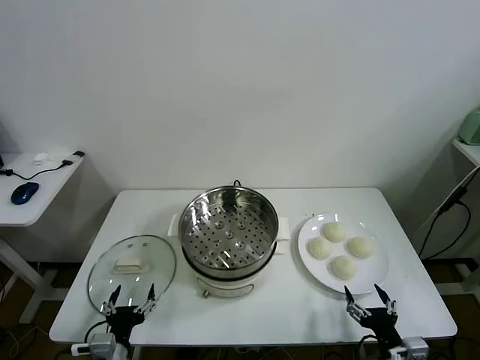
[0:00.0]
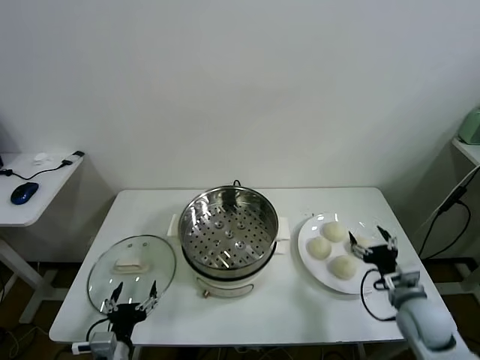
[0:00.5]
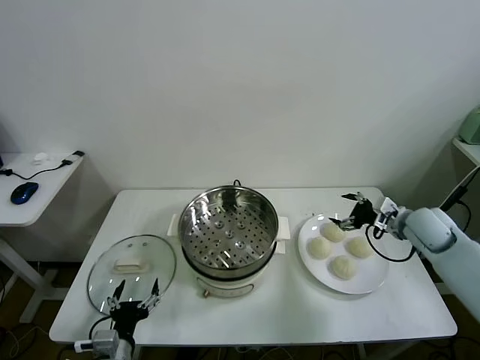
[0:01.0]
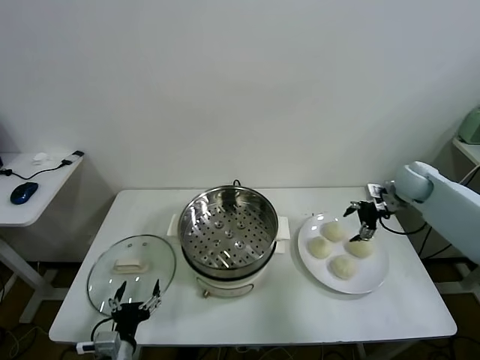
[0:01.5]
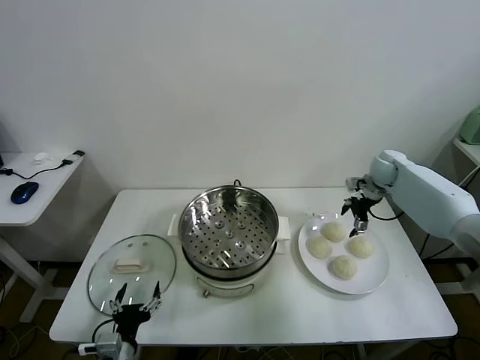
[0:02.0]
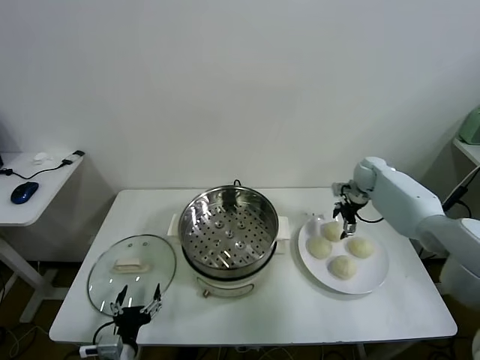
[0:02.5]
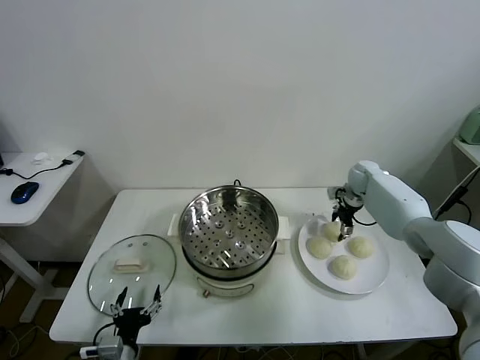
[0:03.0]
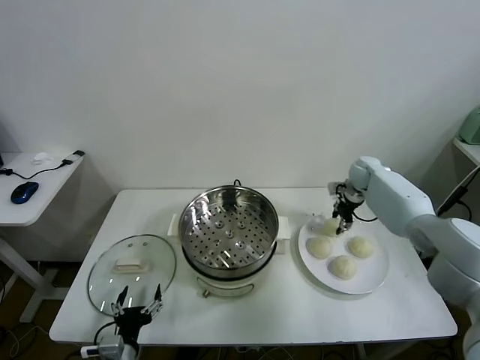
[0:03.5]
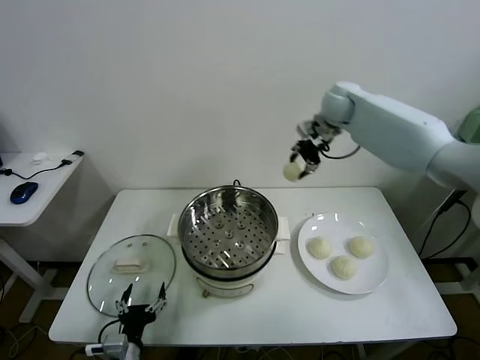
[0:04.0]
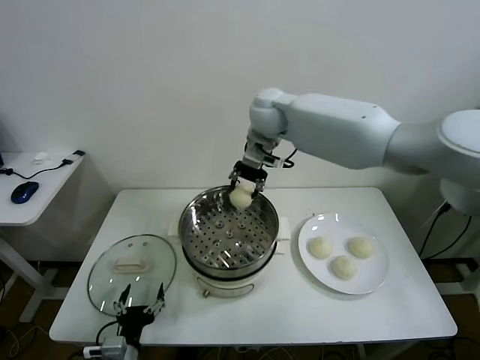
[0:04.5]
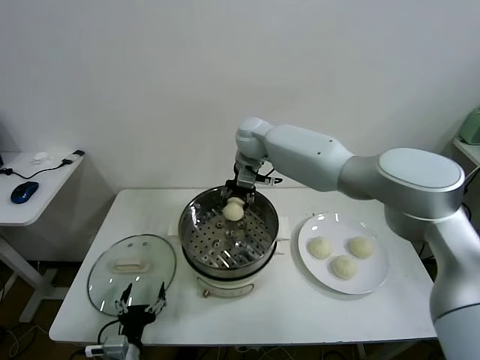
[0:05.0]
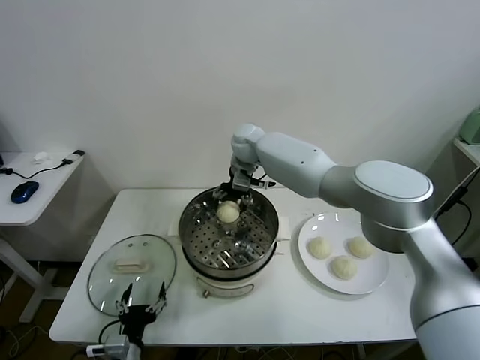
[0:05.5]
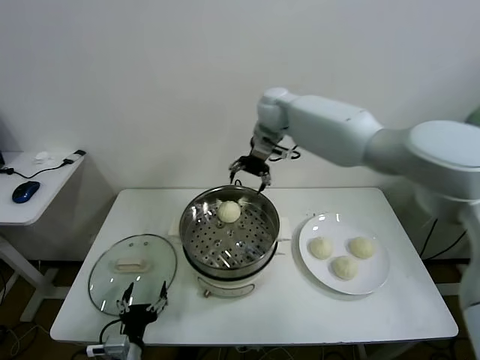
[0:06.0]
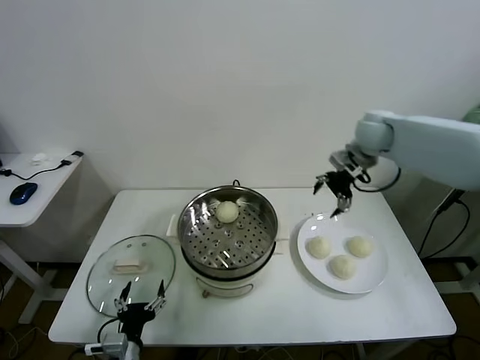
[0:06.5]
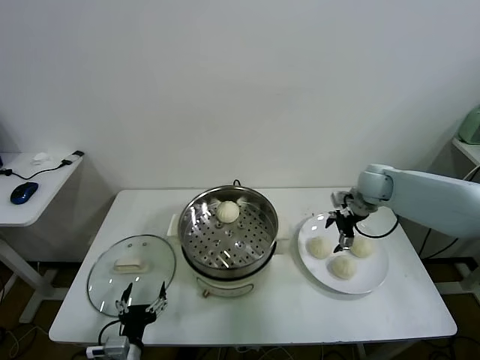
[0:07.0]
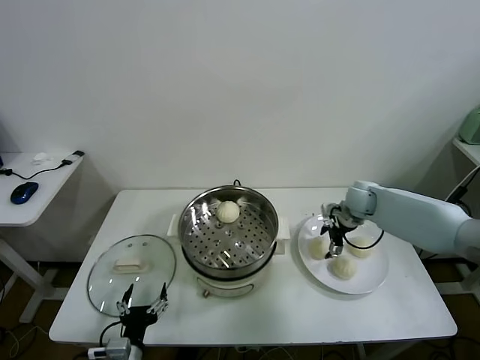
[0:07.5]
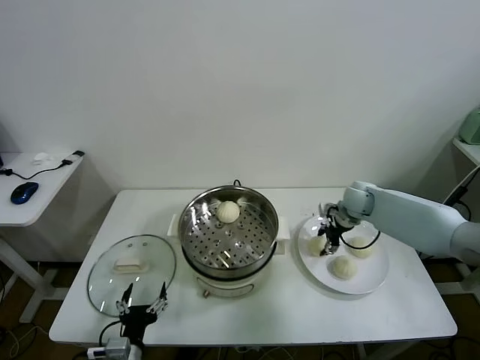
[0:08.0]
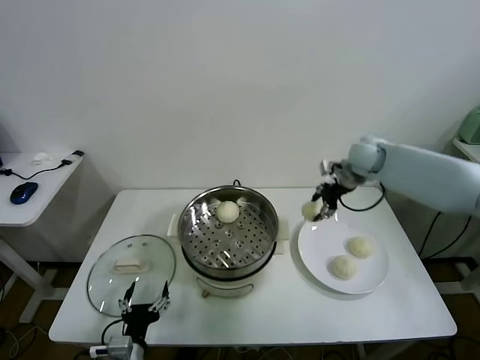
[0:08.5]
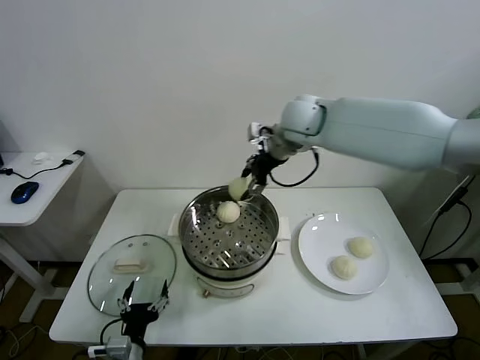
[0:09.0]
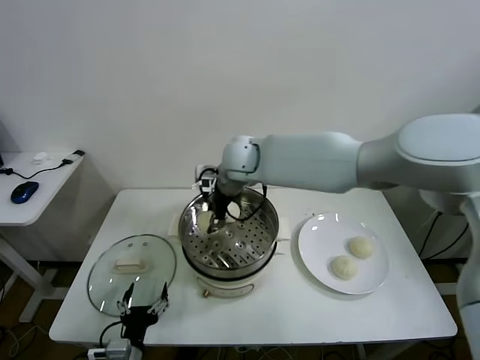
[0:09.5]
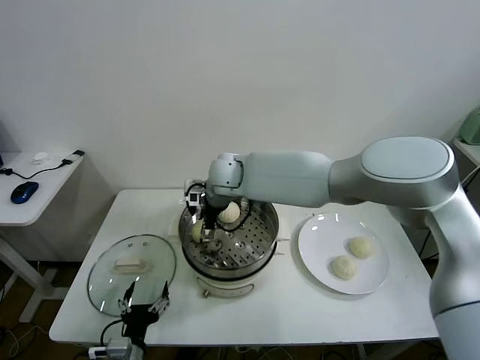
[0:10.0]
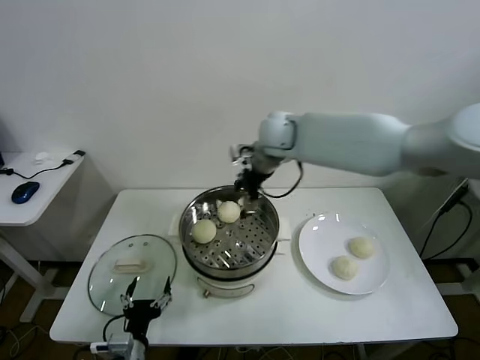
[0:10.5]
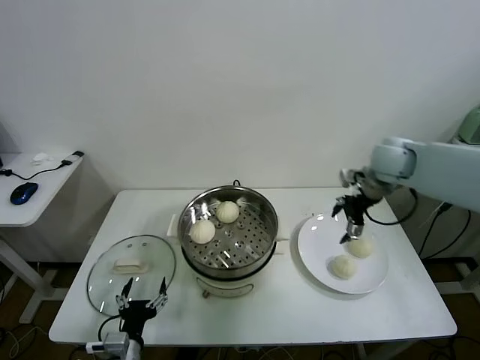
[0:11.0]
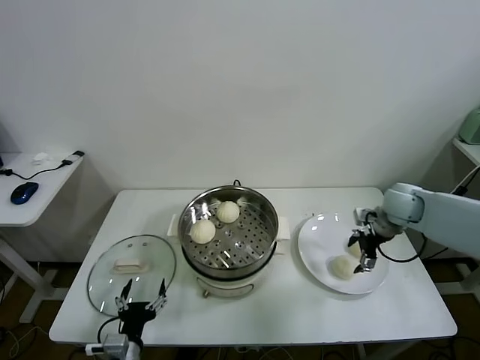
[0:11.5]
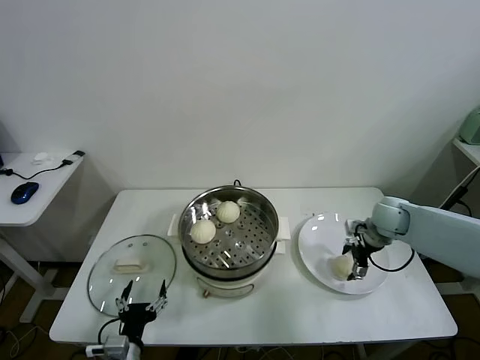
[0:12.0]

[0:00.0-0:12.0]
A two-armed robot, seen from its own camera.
Task of the whole recording: take steamed baozi put them in steamer.
Step, 0:00.0 to 0:03.0: Grasp the baozi in the plate with right gripper.
Step, 0:03.5 to 0:05.5: Place the baozi on the steamer with right gripper.
Step, 0:06.0 to 0:08.0: Grasp the baozi in the plate with right gripper.
Step, 0:08.5 to 0:10.0: Place the baozi on the steamer with right gripper.
0:02.0 to 0:04.0: The right gripper shifts some 30 cm to the left and upward, and closes its fingers.
0:04.0 to 0:06.0: The right gripper goes to the left and returns, some 15 cm each way, and opens up.
0:06.0 to 0:08.0: The right gripper goes some 30 cm downward and to the right, and closes up.
0:08.0 to 0:10.0: The right gripper is displaced to the left by about 35 cm, and opens.
0:10.0 to 0:12.0: The right gripper heads to the right, covering about 40 cm.

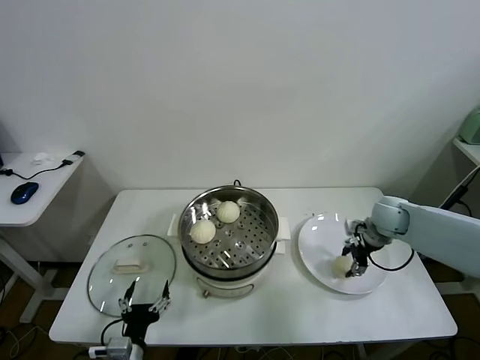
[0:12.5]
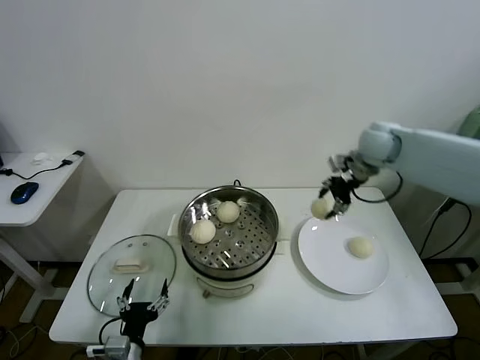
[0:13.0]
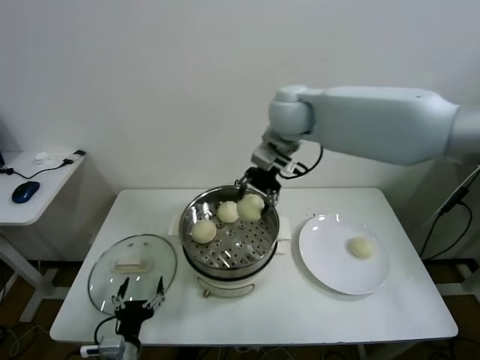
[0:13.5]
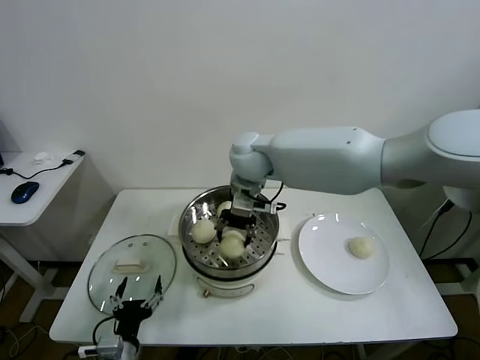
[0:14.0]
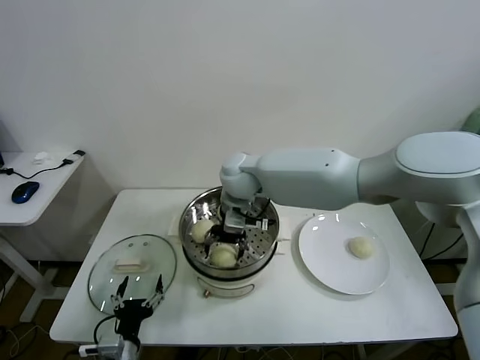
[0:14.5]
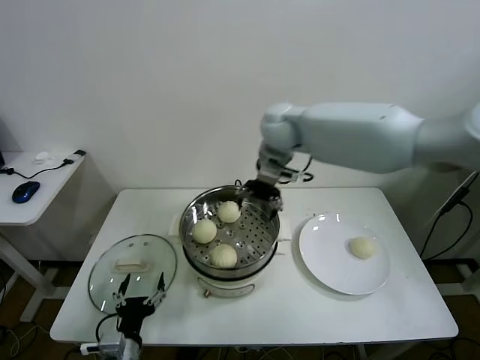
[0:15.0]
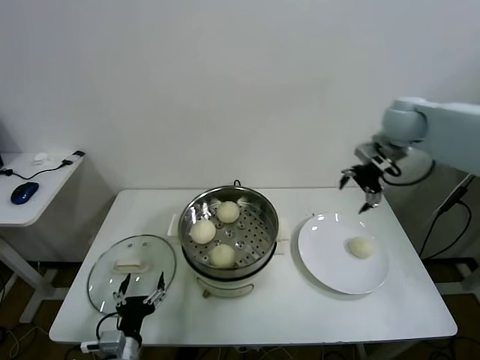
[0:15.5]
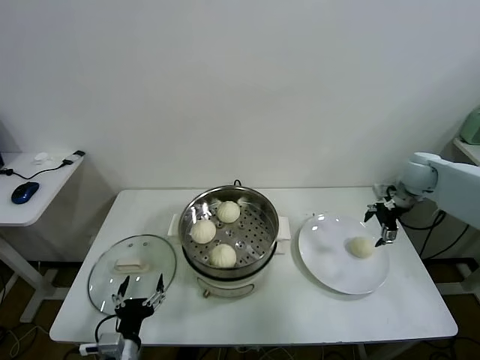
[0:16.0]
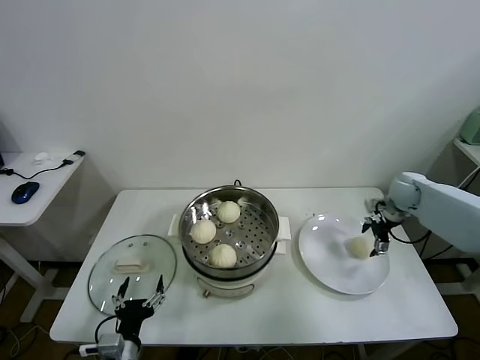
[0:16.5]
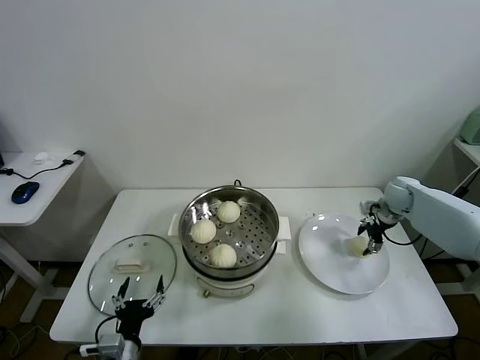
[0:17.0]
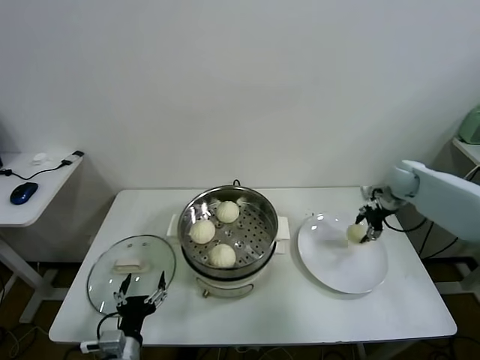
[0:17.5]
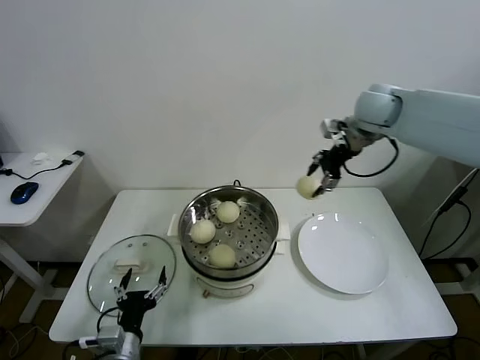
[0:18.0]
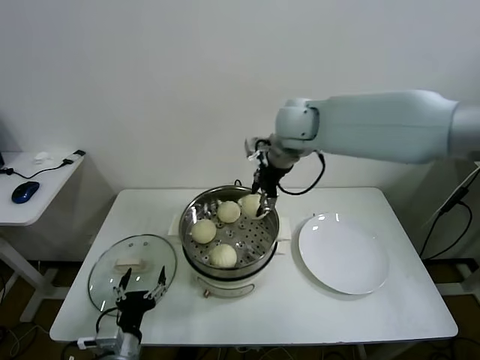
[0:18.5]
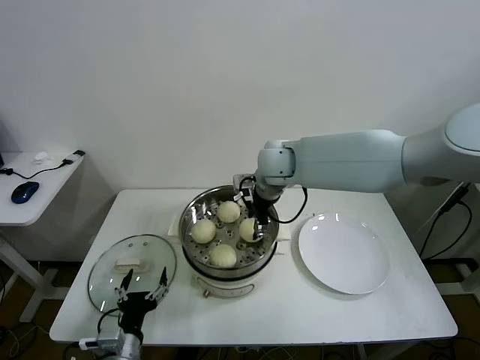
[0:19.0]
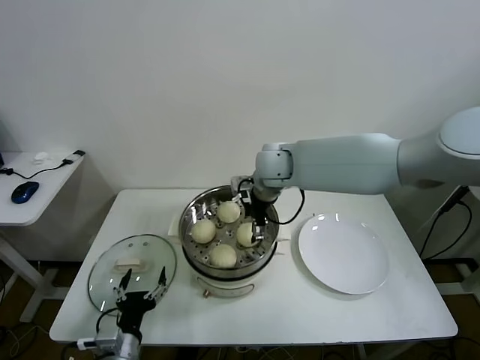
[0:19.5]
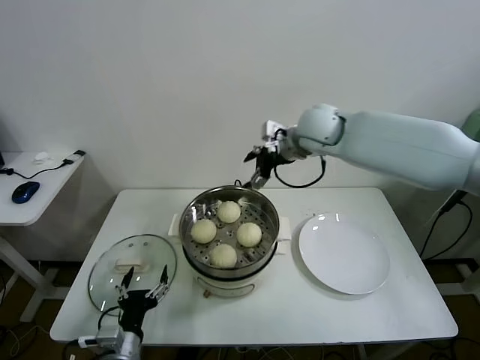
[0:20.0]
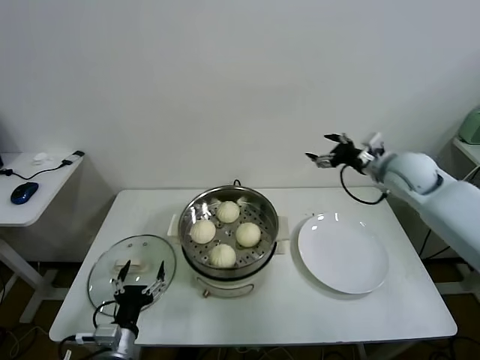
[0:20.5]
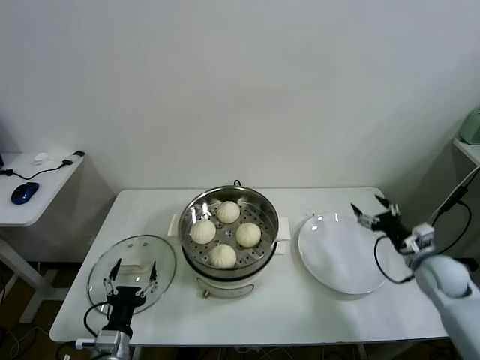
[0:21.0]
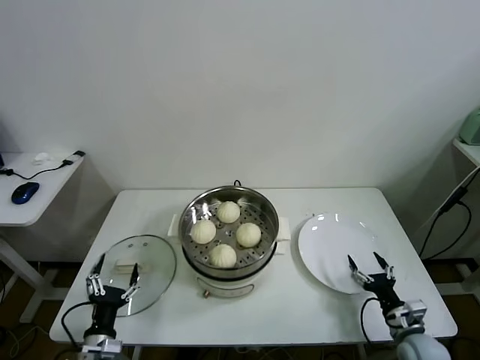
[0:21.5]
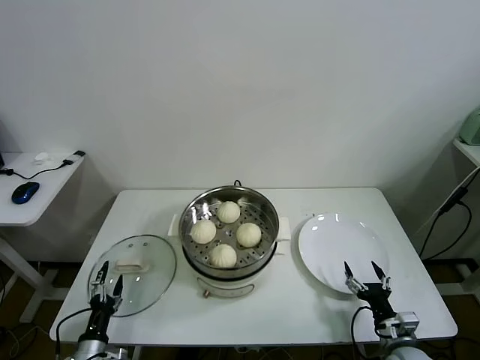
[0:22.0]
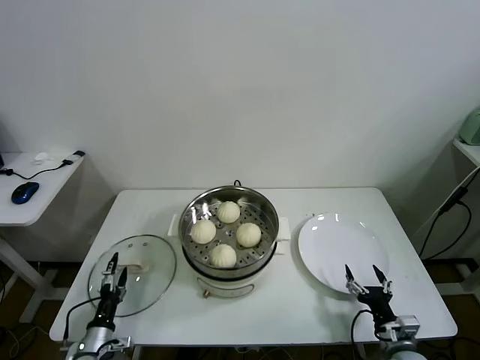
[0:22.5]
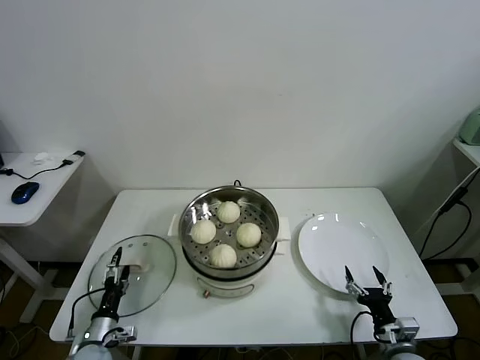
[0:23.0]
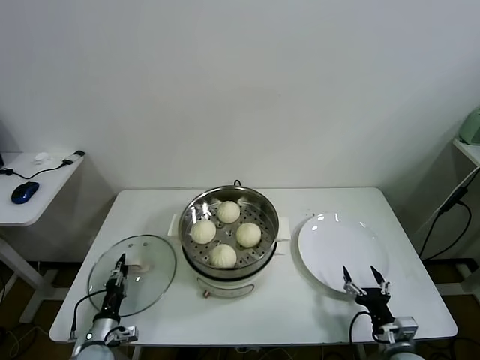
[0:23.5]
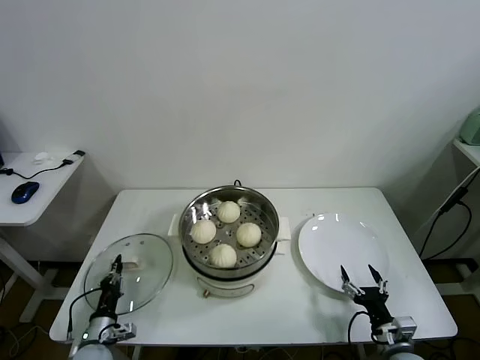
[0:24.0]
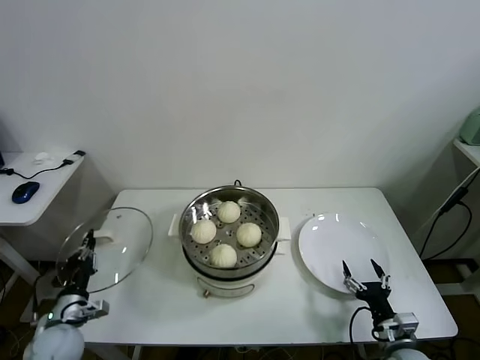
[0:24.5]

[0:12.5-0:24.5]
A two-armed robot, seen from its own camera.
Task of the whole recording: take steamed baozi put them in steamer.
Step, 0:12.5 to 0:14.5: Place the baozi on the steamer with right gripper.
Step, 0:15.0 to 0:17.0: Grasp the baozi in the plate with right gripper.
Step, 0:17.5 to 0:19.5: Place the baozi on the steamer with right gripper.
Step, 0:20.0 to 0:23.5: Grasp the pot lid with left gripper.
0:12.5 to 0:14.5: The right gripper travels to the left by about 35 cm, and opens.
0:14.5 to 0:16.5: The right gripper heads to the right, covering roughly 40 cm.
0:16.5 to 0:18.5: The right gripper is displaced to the left and upward by about 40 cm, and closes up.
0:18.5 to 0:20.5: The right gripper goes approximately 30 cm to the right and downward, and opens.
0:20.5 to 0:22.5: The right gripper goes roughly 40 cm downward and backward. The left gripper goes about 15 cm downward and to the left.
0:22.5 to 0:24.5: The left gripper heads upward, covering some 10 cm, and closes its fingers.

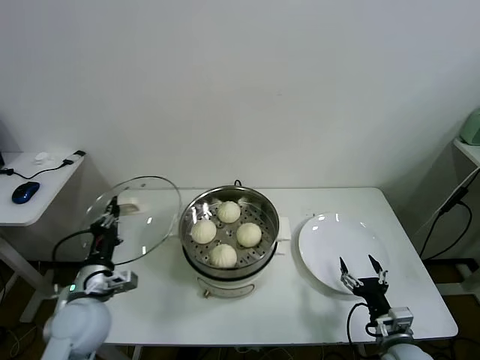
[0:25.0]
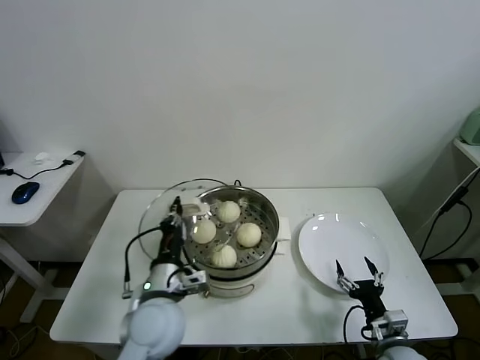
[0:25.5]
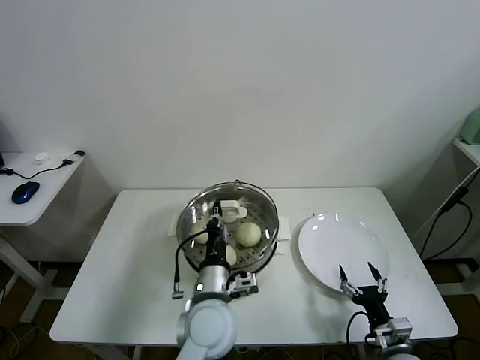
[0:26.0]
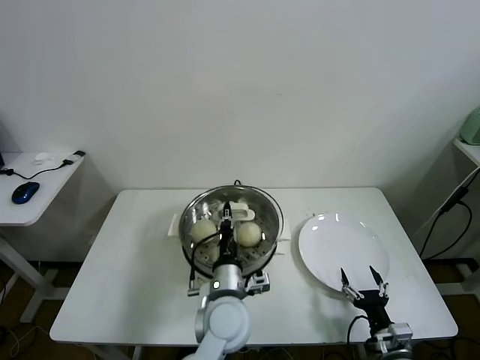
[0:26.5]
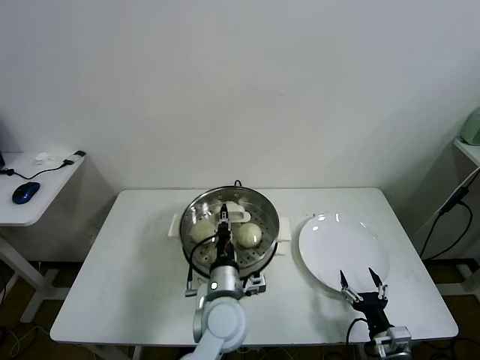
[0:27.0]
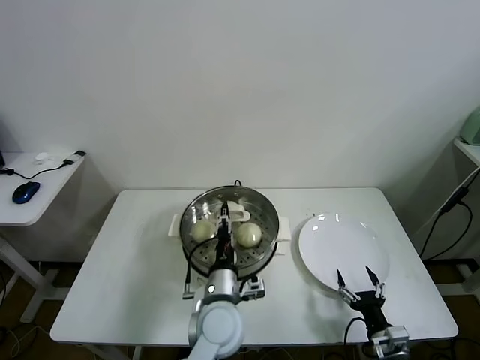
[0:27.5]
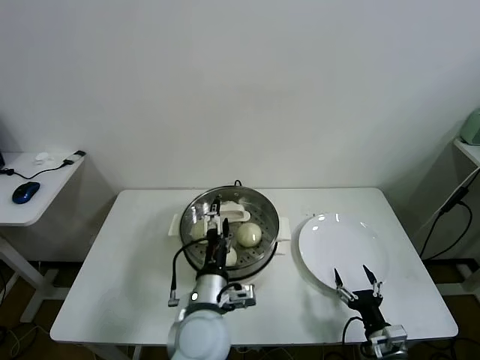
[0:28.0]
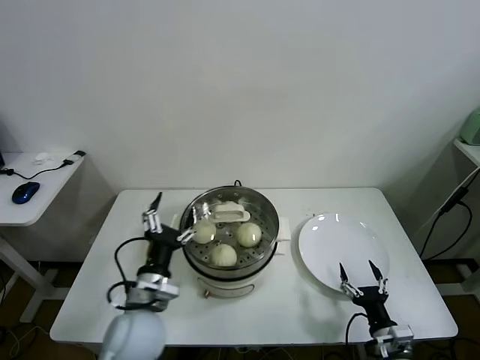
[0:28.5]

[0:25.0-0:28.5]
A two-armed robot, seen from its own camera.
Task of the whole recording: take steamed baozi put them in steamer.
Step, 0:25.0 to 0:27.5: Place the pot lid on the steamer with left gripper.
0:25.0 to 0:27.0: The left gripper is displaced to the right by about 30 cm.
0:27.0 to 0:28.5: The left gripper is displaced to the left by approximately 15 cm, and opens its fingers.
